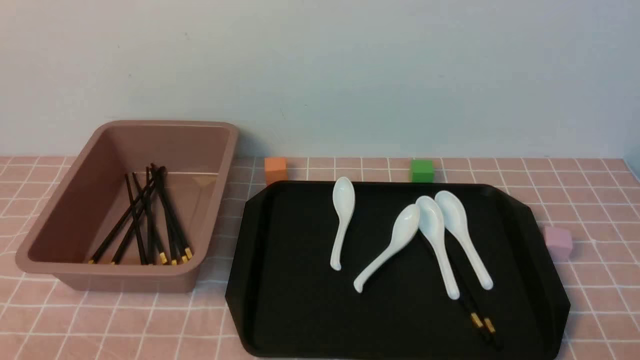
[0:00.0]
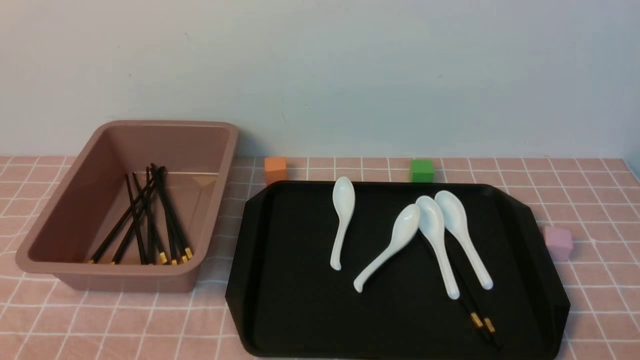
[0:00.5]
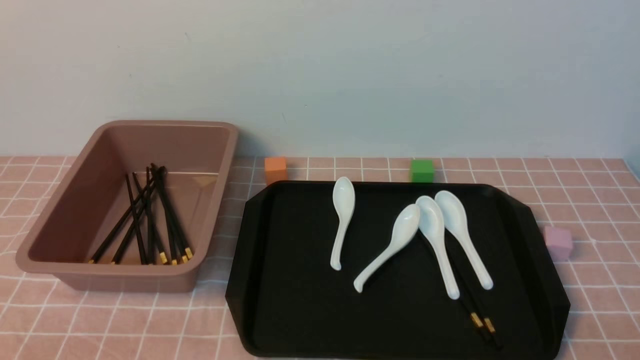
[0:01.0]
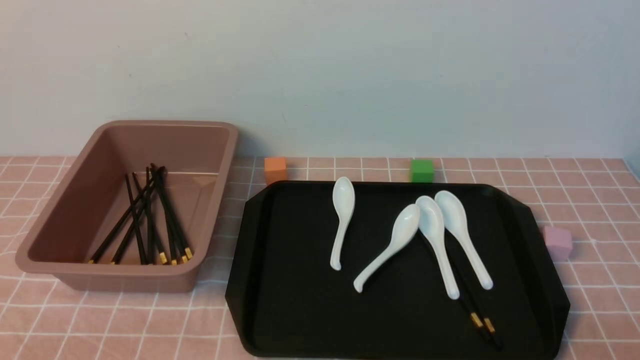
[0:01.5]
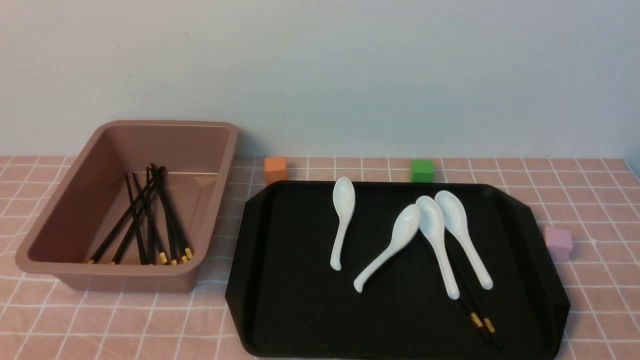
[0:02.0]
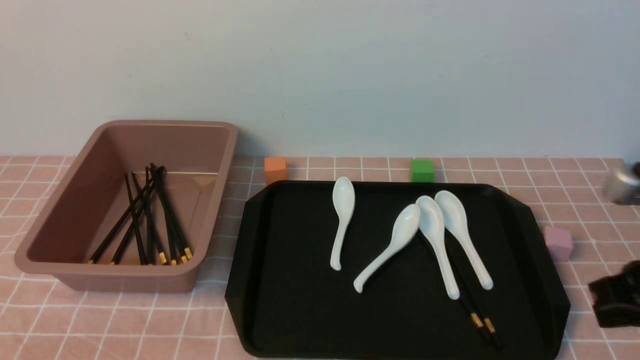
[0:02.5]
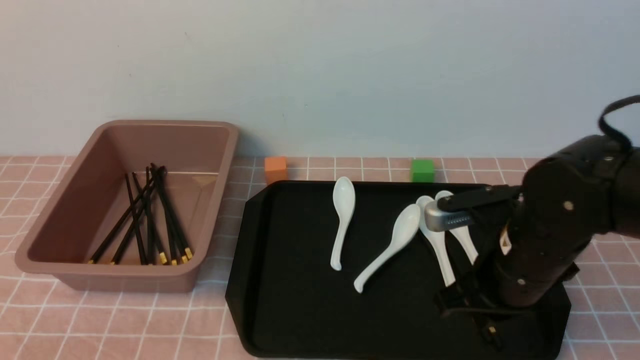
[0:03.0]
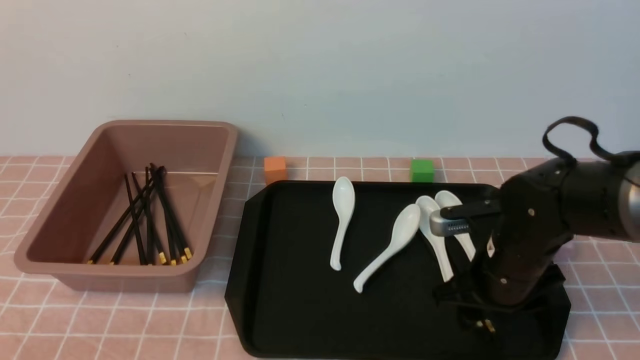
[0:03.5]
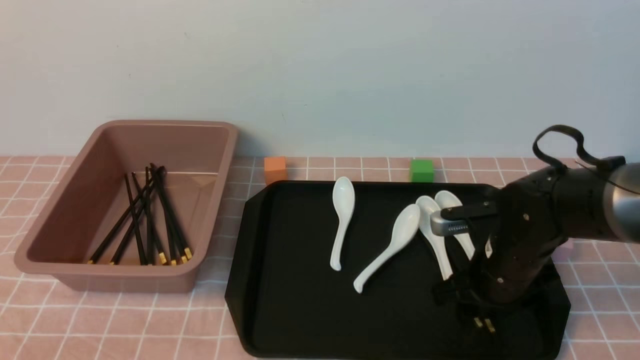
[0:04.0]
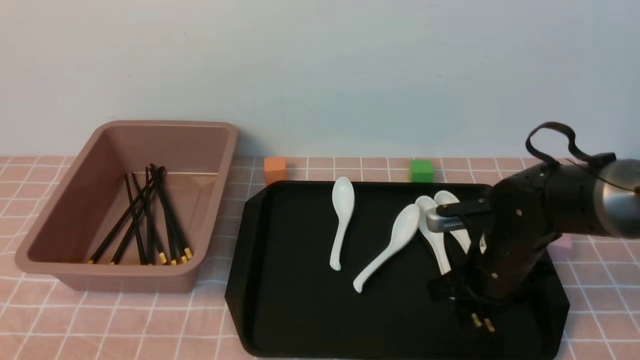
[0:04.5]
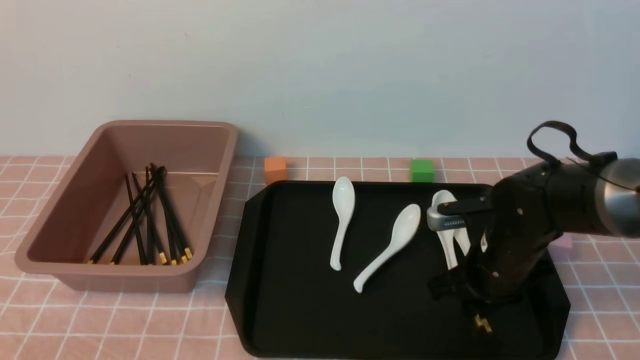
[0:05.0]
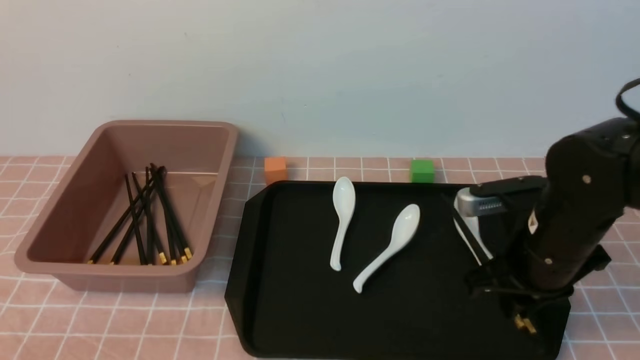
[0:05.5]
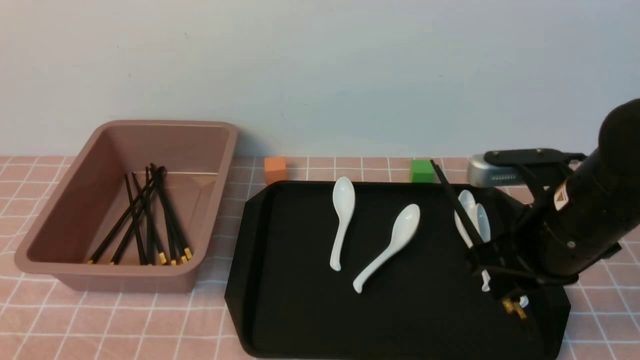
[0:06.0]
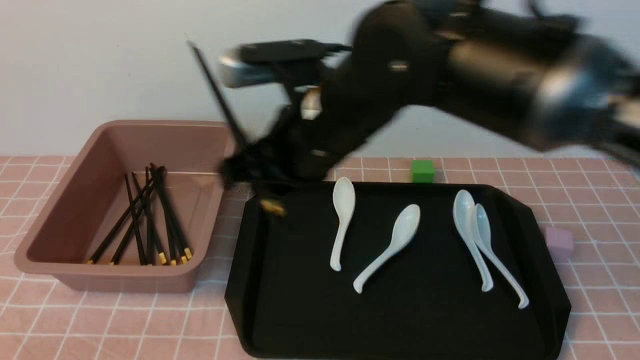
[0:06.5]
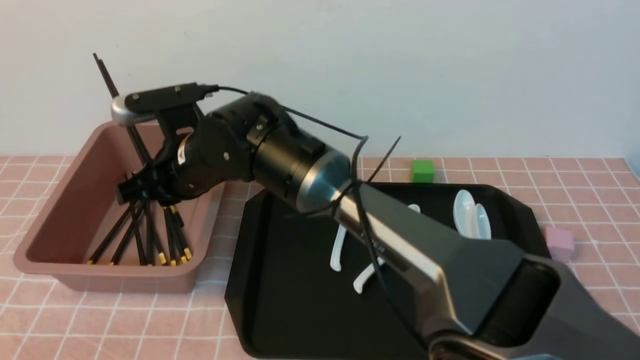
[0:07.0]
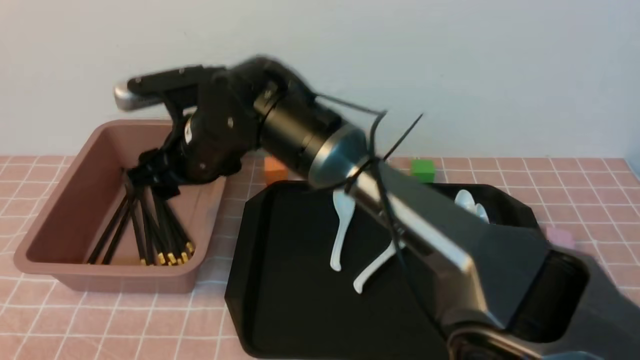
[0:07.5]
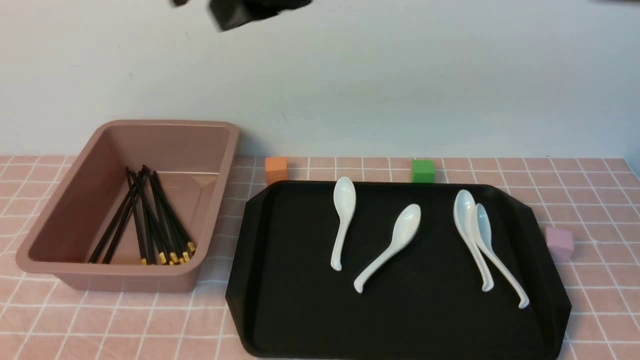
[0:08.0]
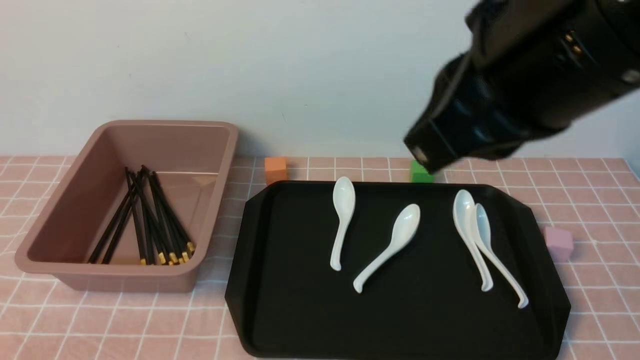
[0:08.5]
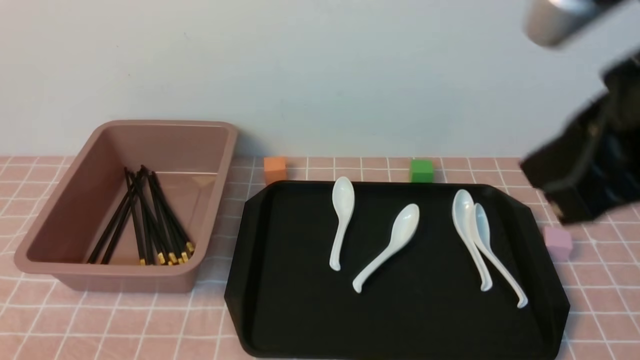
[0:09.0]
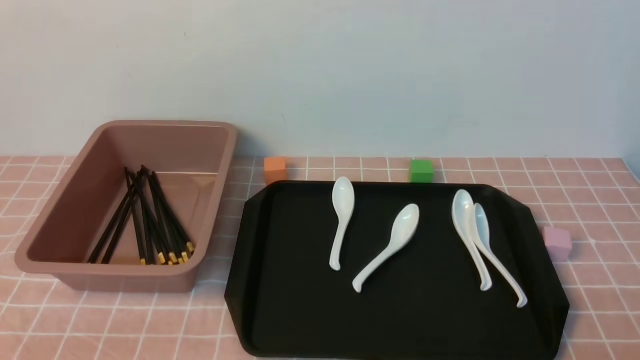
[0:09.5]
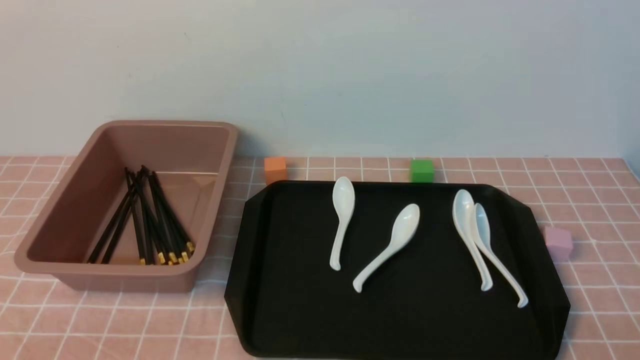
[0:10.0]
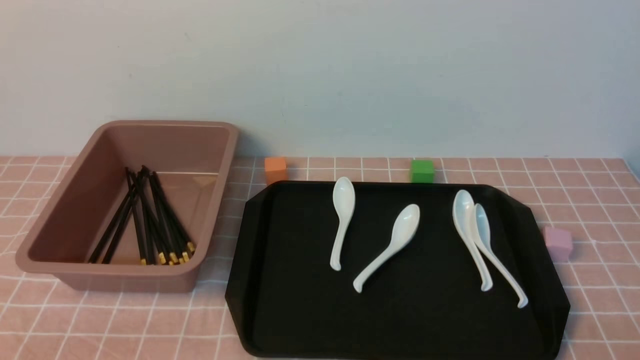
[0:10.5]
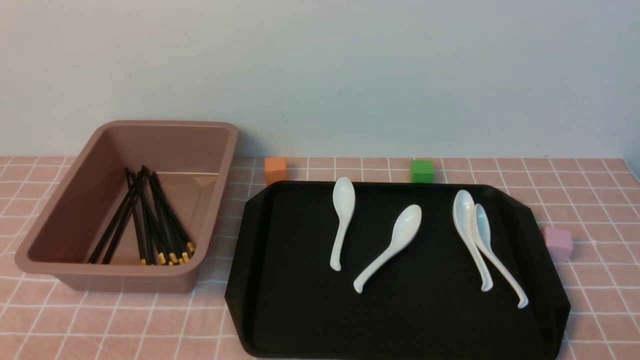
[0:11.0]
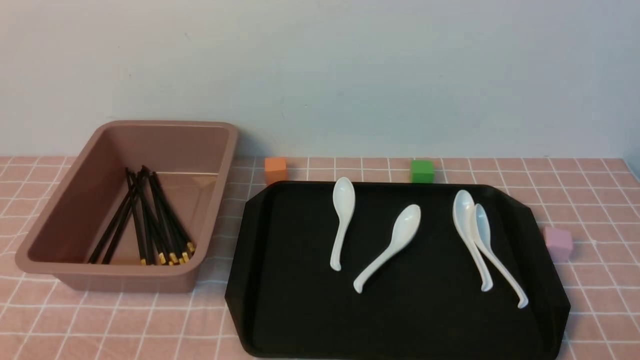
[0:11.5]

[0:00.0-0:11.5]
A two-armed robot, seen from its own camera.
Step, 0:00.0 to 0:05.5: use the right arm to grab a pair of chopsticks.
Step, 0:06.0 to 0:07.5: use the right arm to put the chopsticks into the lunch box.
0:02.0 to 0:04.0: The right gripper heads forward, downward and to the left, covering approximately 30 cm, and opens.
0:04.0 to 0:06.0: The right gripper shifts approximately 15 cm upward and backward, and closes its fingers.
0:06.0 to 0:07.5: The right gripper is displaced to the left by roughly 25 cm, and opens up.
0:07.5 to 0:09.5: The right gripper travels to the right and backward by about 50 cm, and closes its fingers.
